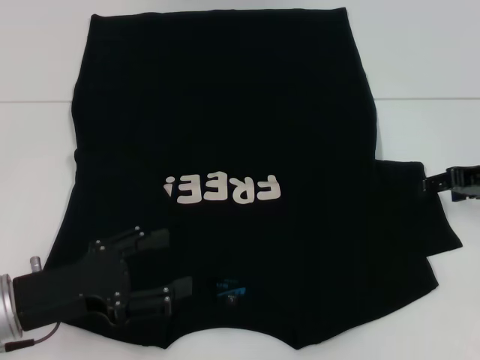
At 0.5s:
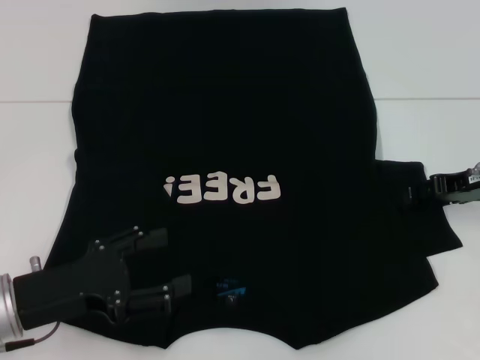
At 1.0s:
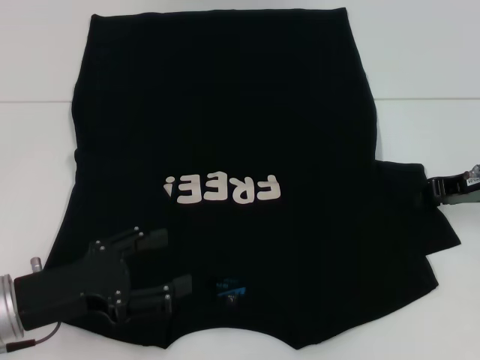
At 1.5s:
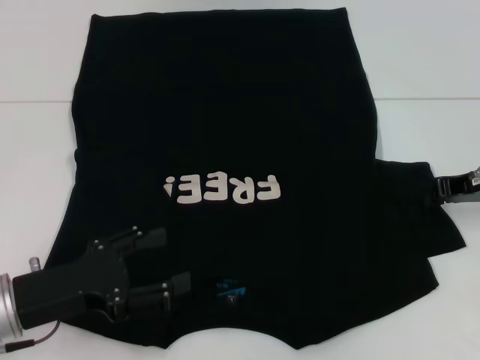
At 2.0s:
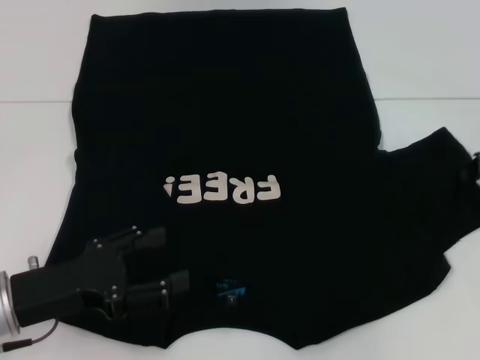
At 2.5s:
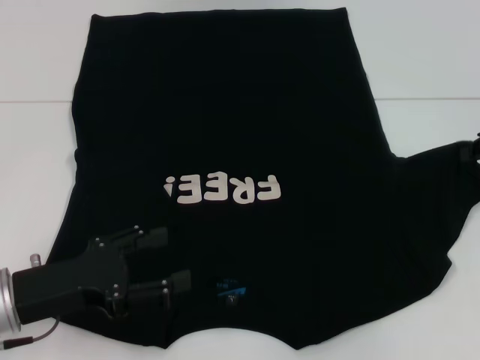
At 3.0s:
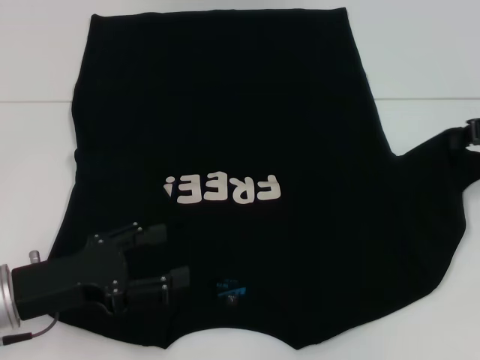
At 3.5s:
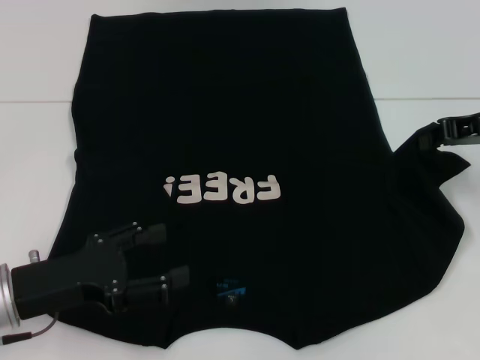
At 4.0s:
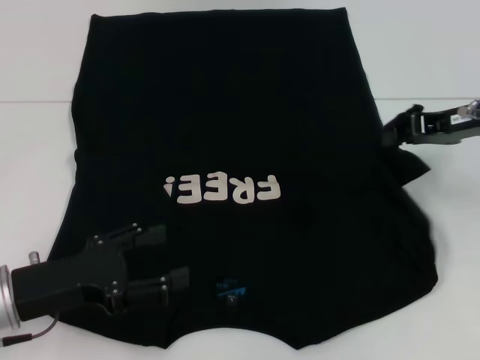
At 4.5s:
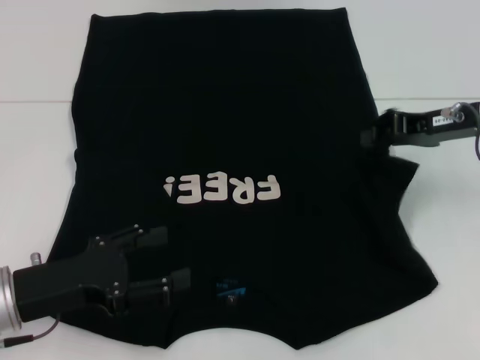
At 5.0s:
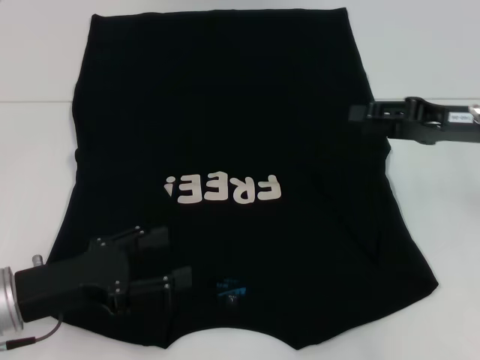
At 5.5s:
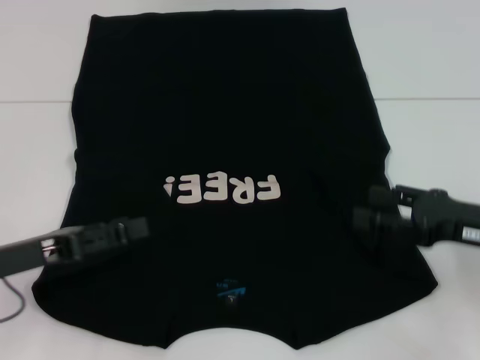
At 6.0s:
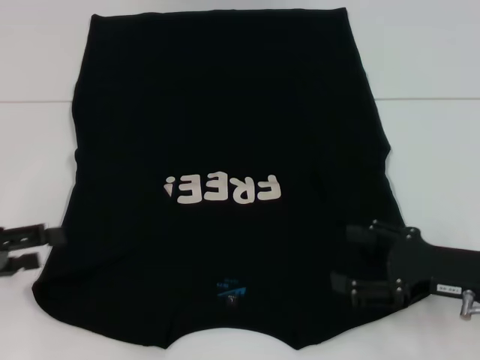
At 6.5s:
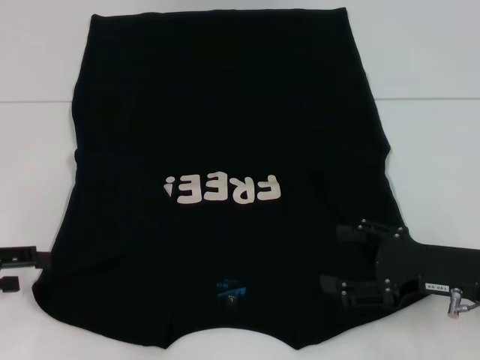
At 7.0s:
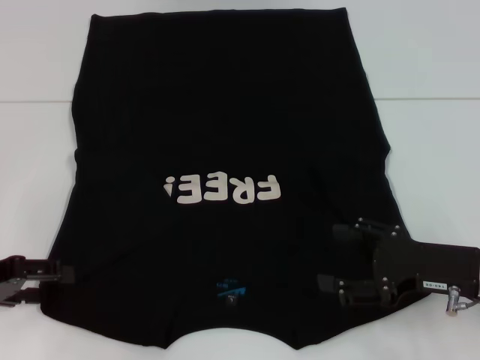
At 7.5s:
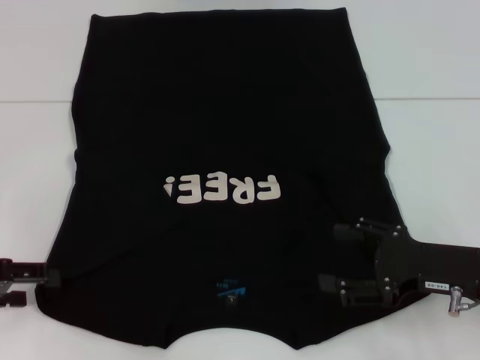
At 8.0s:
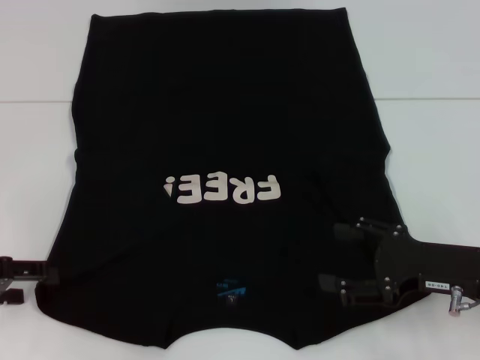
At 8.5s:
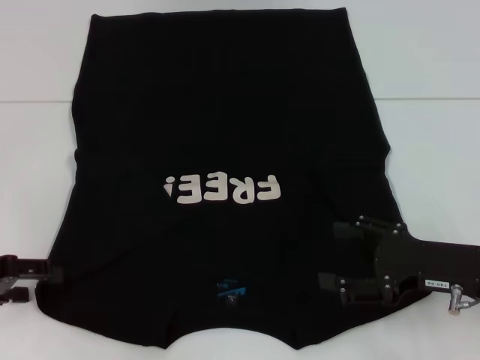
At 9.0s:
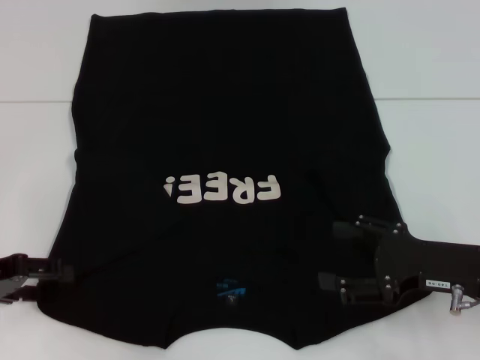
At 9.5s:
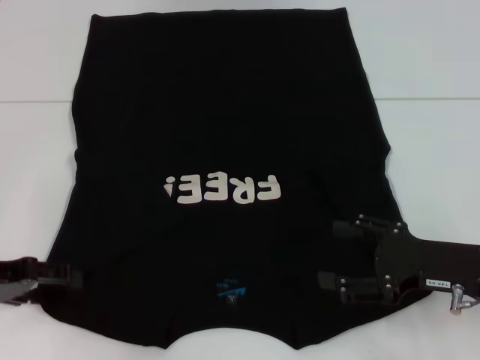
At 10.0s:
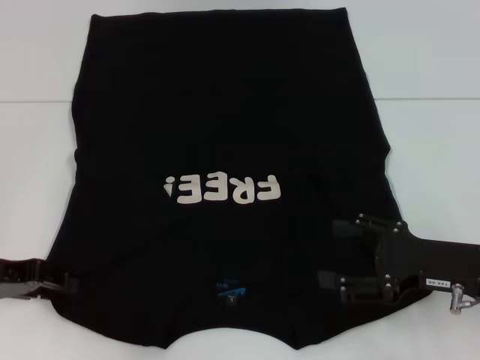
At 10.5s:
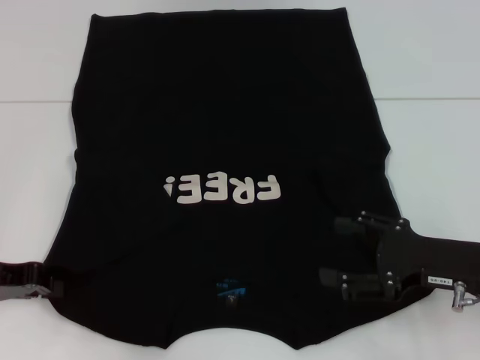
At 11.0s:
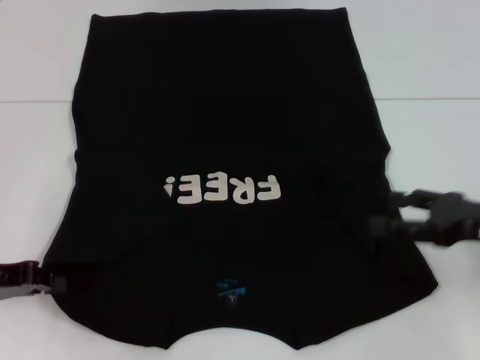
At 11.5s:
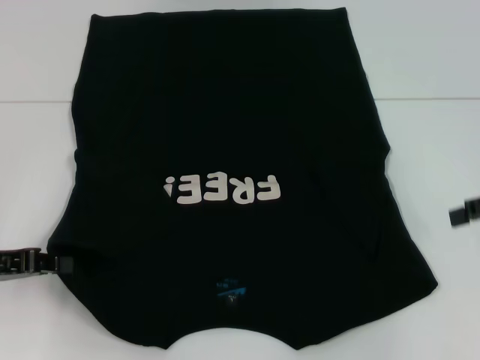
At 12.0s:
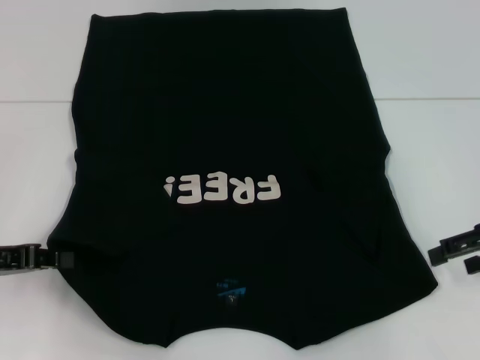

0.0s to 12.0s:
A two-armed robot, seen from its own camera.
Step, 0.0s to 5.0s: Fold the bottom right sleeve with your right hand.
Step, 5.5s to 11.0s: Grab the bottom left corner with your left hand.
0.0s to 2.0s: The right gripper closes up.
2.0s to 4.0s: The right gripper goes some 5 cm to the left.
4.0s to 6.0s: The left gripper goes approximately 10 cm to the left; the right gripper shifts approximately 15 cm backward and downward, and opens its fingers.
6.0s to 8.0s: There are only small adjustments of the grippers.
8.0s to 10.0s: The grippers make only small movements.
10.0s to 12.0s: The left gripper closes its fingers. Meanwhile the right gripper heads upward, to the right and forward, covering about 10 cm.

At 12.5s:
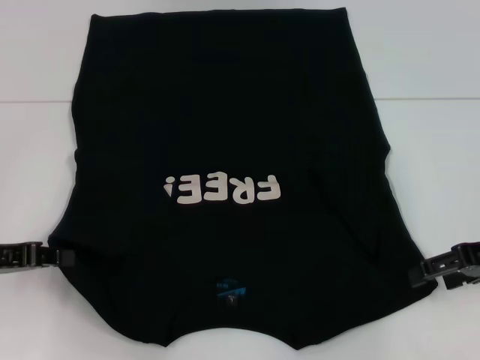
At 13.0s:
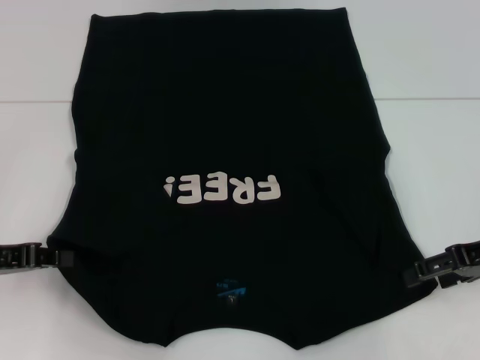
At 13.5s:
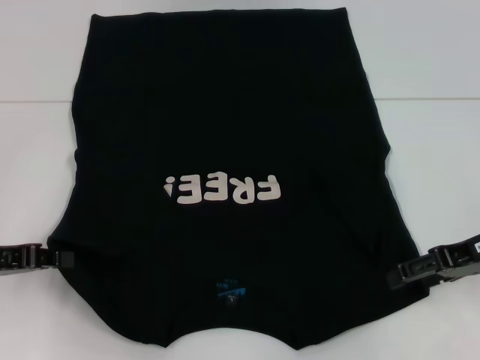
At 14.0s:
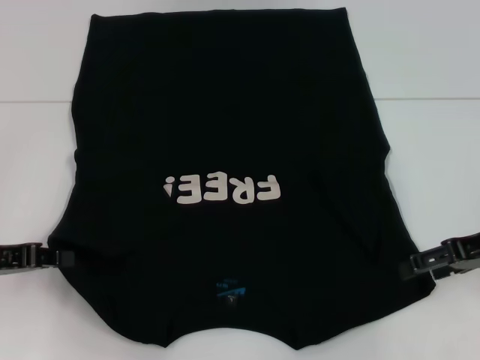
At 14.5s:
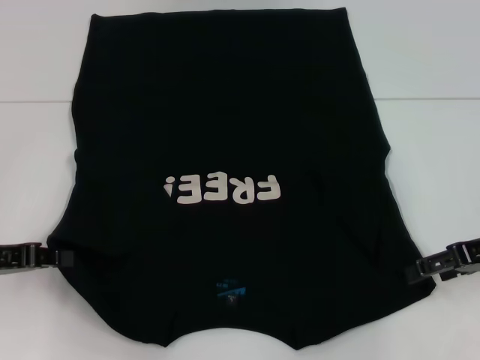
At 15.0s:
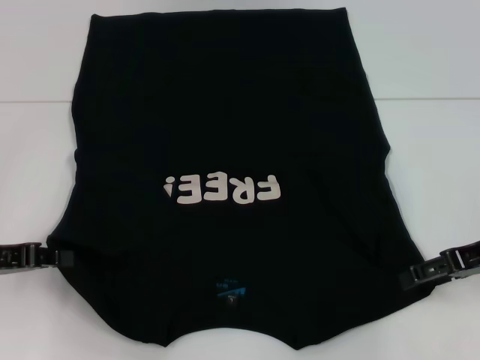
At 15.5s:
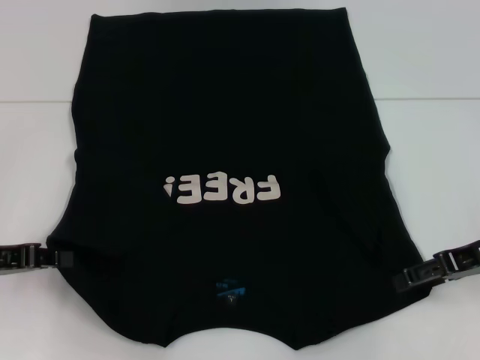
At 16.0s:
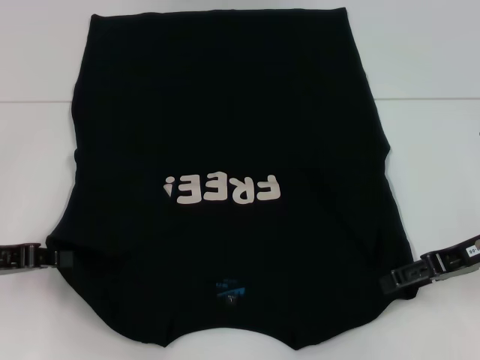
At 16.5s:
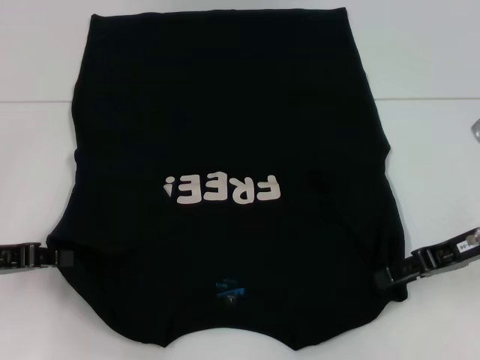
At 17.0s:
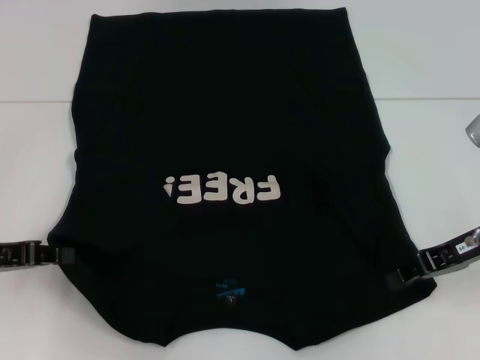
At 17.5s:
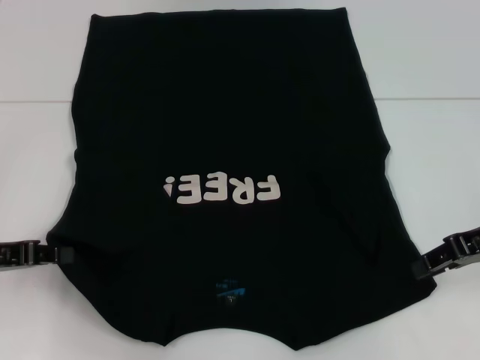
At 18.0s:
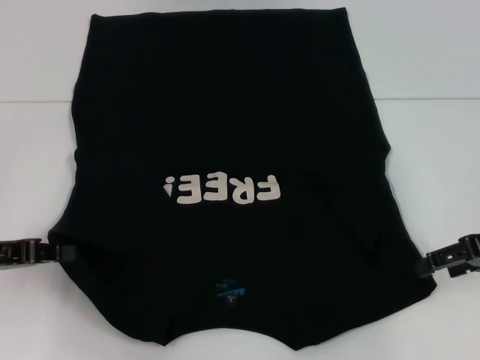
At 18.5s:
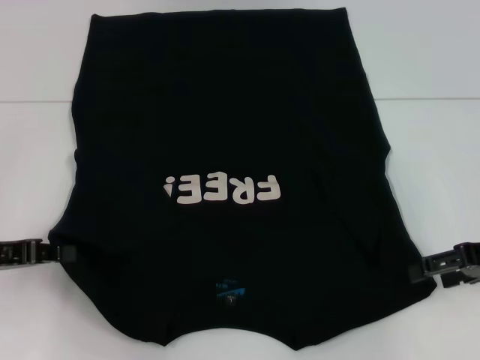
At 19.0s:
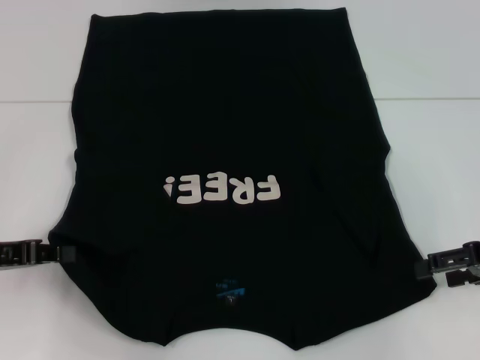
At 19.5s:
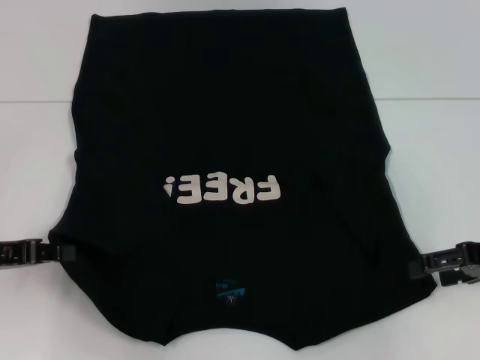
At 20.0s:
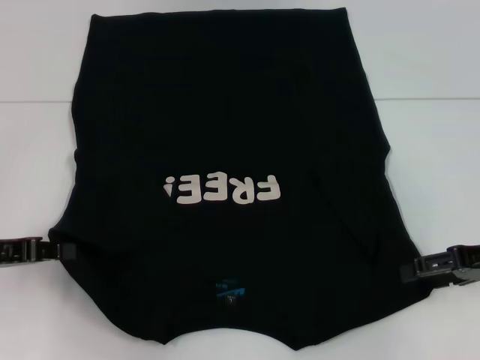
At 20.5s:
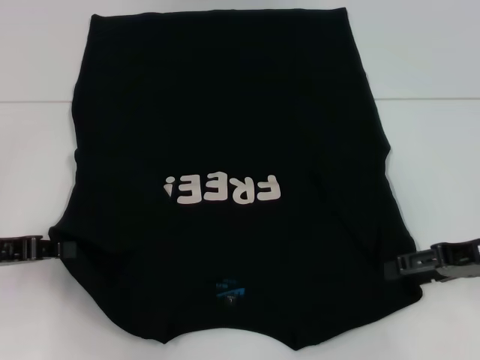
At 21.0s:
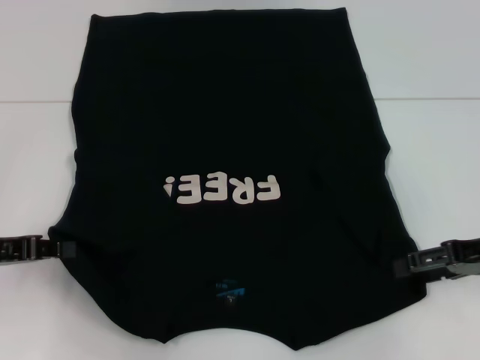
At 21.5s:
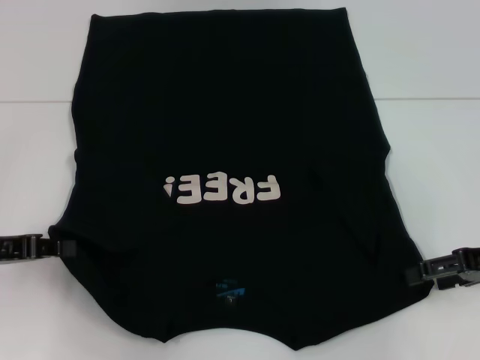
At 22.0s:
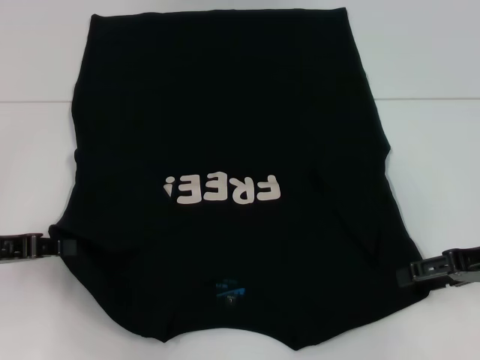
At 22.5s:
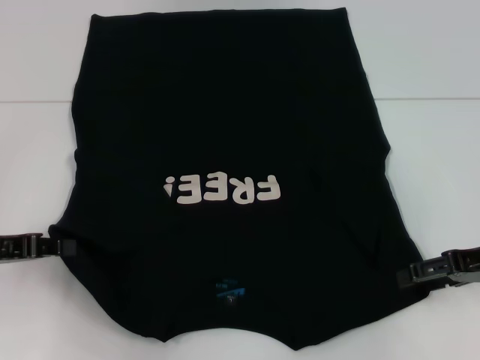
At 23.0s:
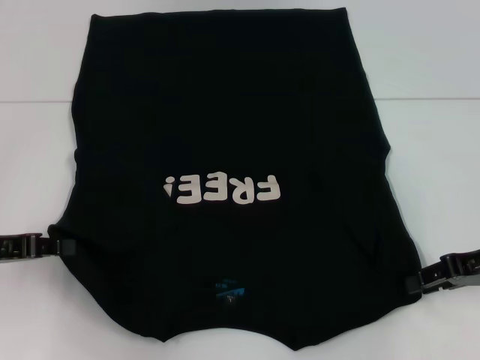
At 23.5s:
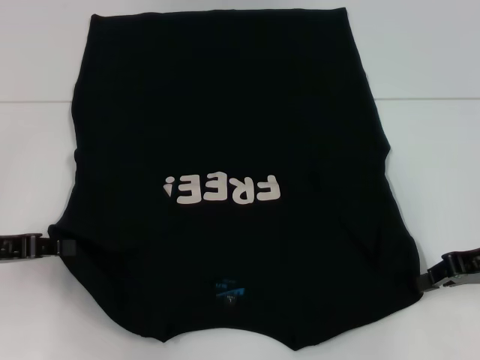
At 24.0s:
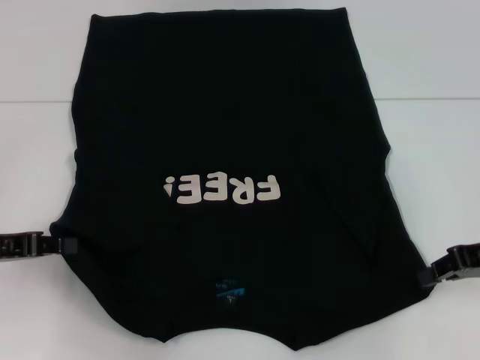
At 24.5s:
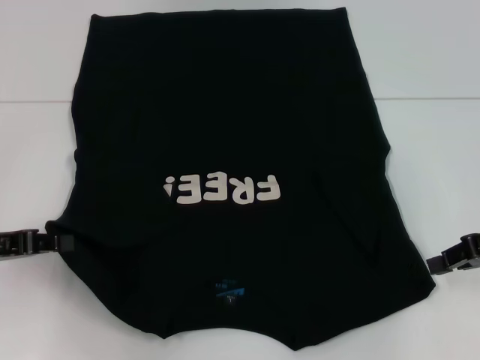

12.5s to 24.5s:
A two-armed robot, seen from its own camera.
14.5s to 16.5s: There are only small adjustments of the grippers.
16.5s to 18.5s: The right gripper closes, then reopens.
18.5s to 22.5s: The grippers move only a little.
22.5s to 24.5s: The right gripper closes.

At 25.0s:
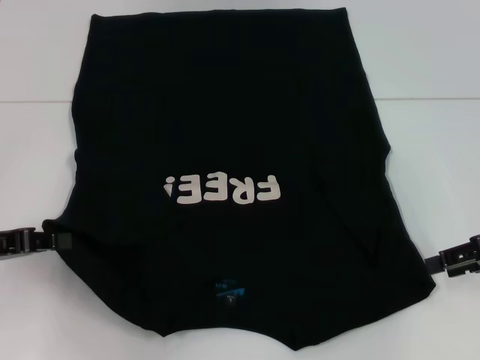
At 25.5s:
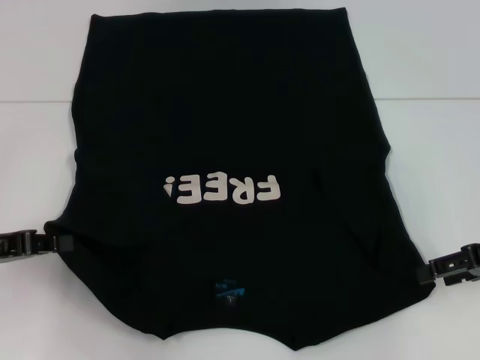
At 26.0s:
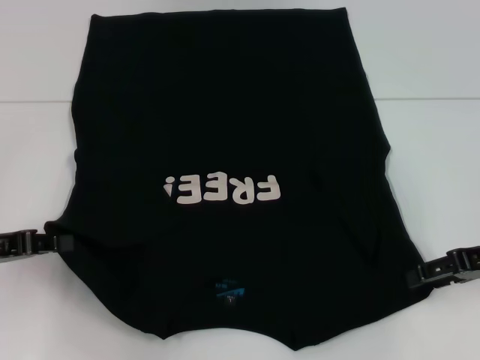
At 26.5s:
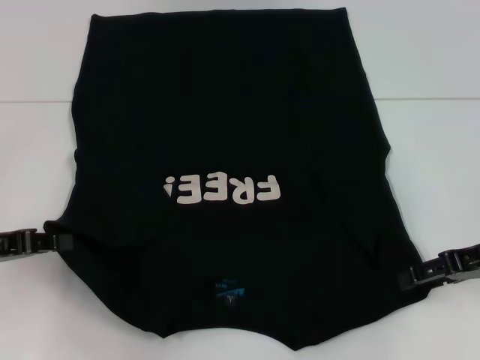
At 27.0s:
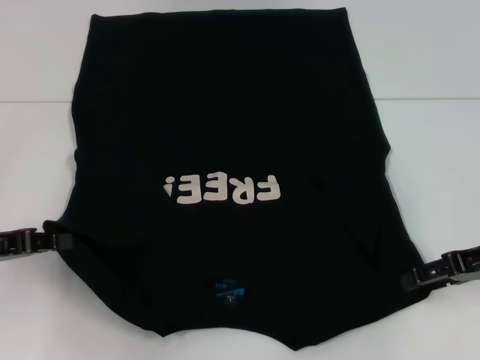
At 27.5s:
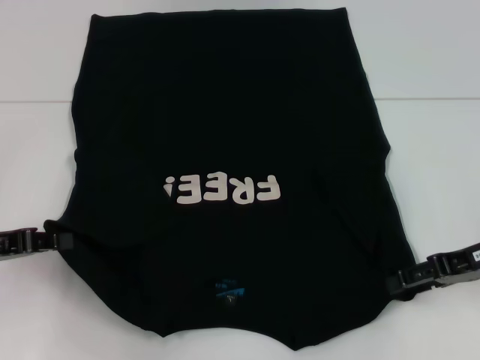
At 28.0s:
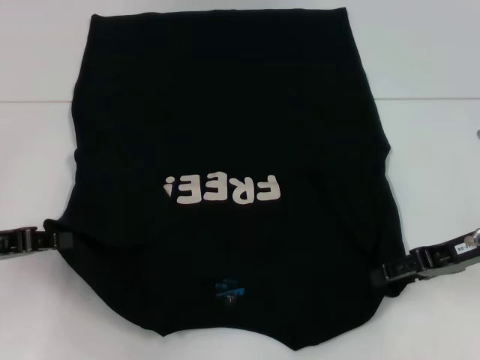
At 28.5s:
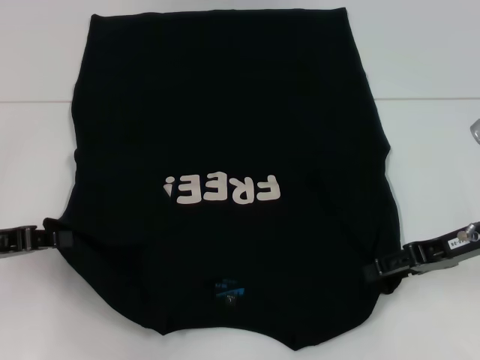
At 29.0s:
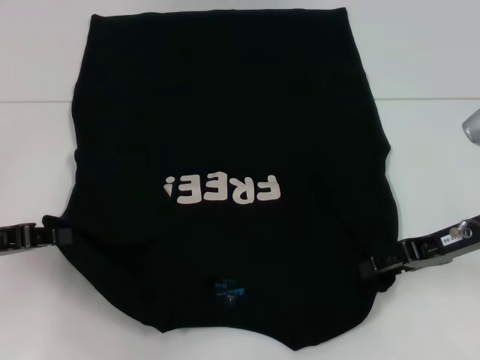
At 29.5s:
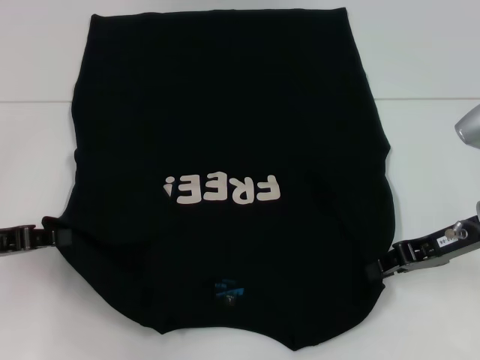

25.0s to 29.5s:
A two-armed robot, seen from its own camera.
Step, 25.0s to 28.5s: Grab the bottom right corner with your right hand.
25.0s to 27.0s: The right gripper opens its fingers.
27.0s to 29.5s: The right gripper ends up some 5 cm from where it was, and closes its fingers.
